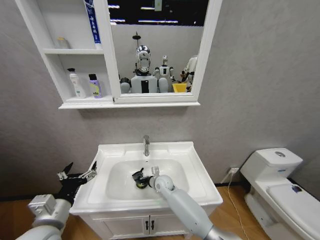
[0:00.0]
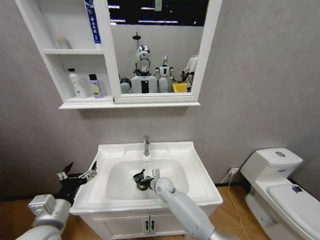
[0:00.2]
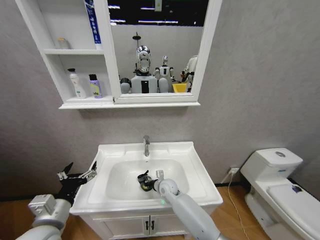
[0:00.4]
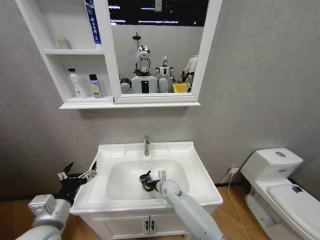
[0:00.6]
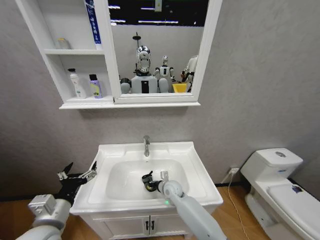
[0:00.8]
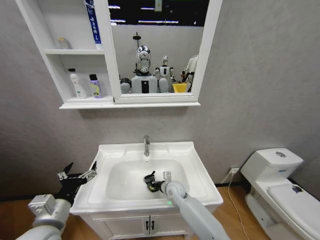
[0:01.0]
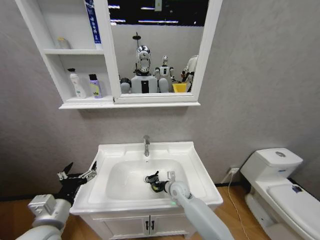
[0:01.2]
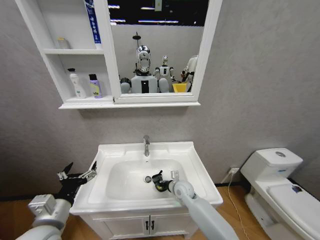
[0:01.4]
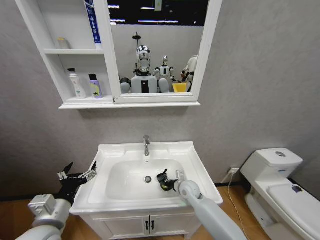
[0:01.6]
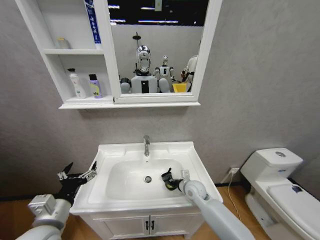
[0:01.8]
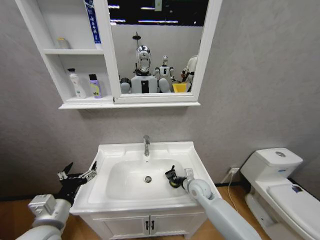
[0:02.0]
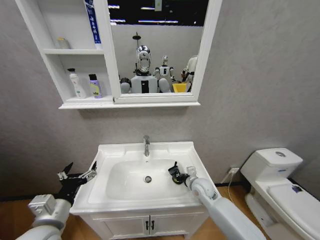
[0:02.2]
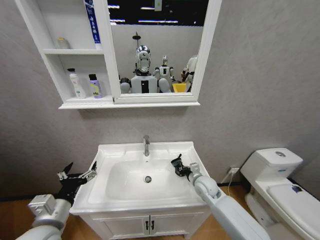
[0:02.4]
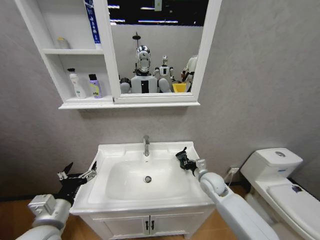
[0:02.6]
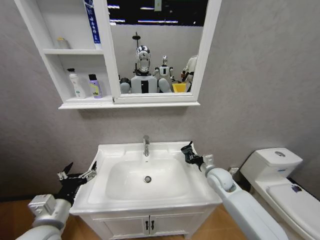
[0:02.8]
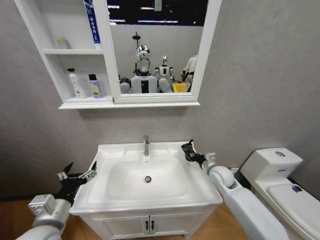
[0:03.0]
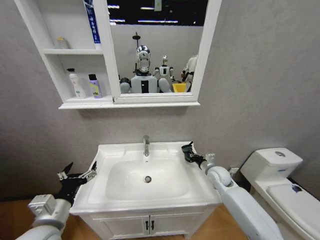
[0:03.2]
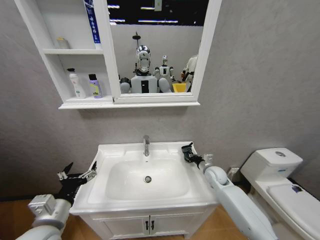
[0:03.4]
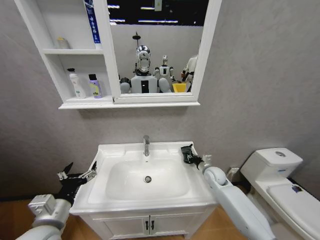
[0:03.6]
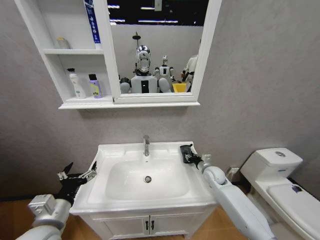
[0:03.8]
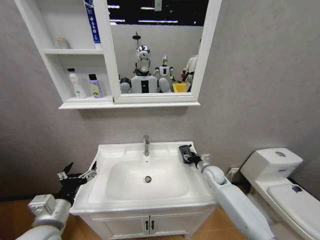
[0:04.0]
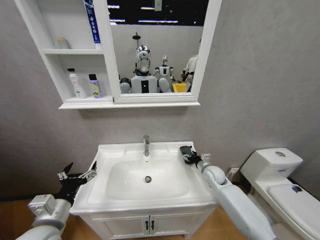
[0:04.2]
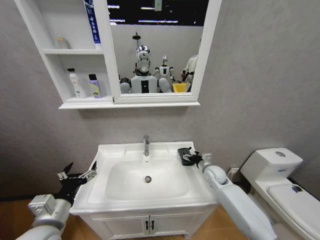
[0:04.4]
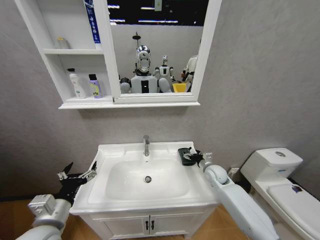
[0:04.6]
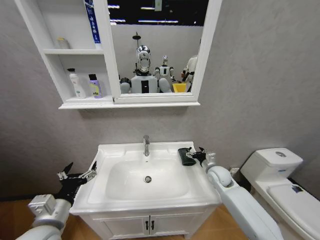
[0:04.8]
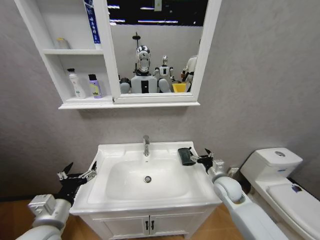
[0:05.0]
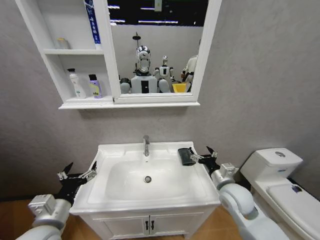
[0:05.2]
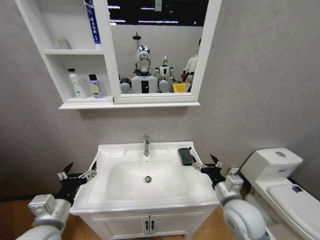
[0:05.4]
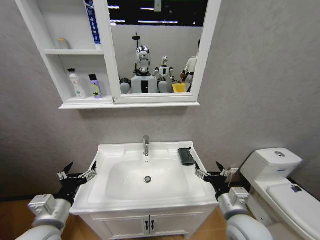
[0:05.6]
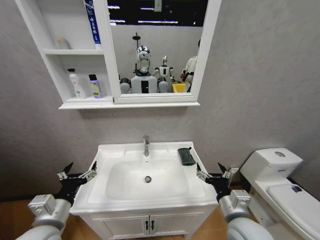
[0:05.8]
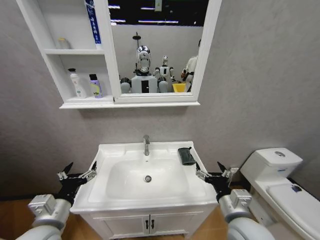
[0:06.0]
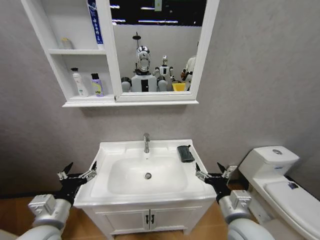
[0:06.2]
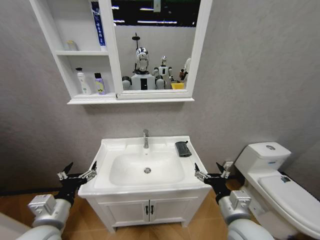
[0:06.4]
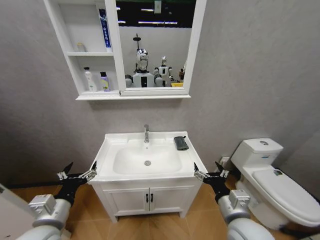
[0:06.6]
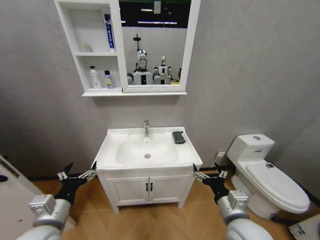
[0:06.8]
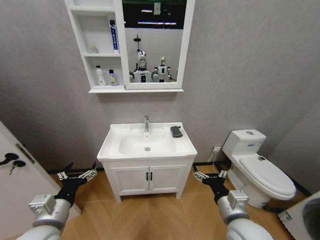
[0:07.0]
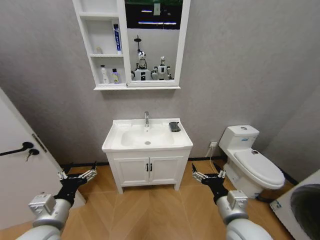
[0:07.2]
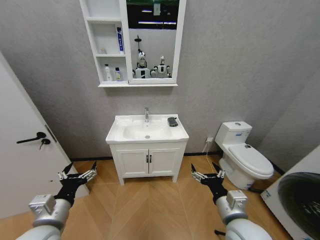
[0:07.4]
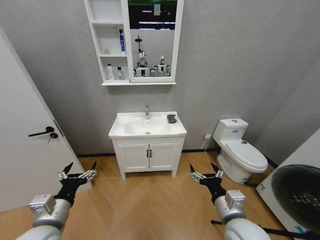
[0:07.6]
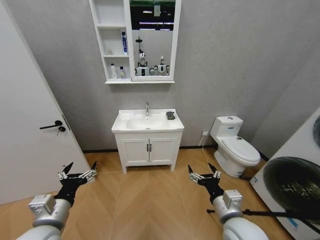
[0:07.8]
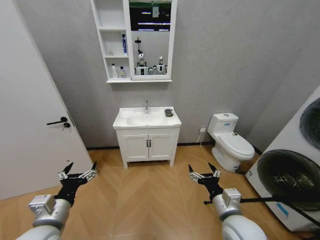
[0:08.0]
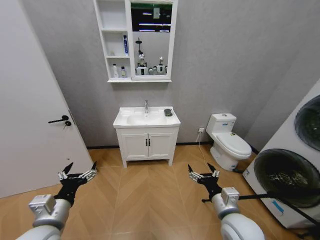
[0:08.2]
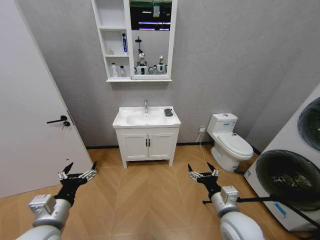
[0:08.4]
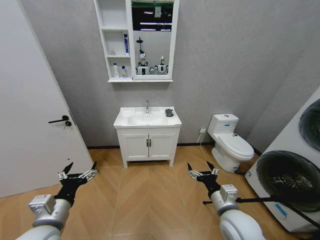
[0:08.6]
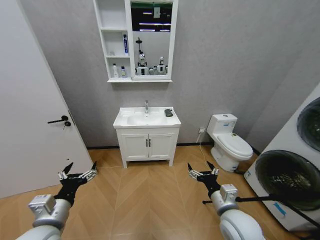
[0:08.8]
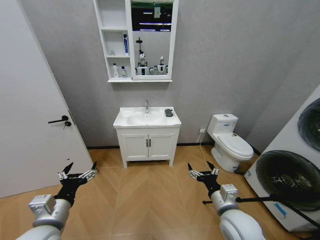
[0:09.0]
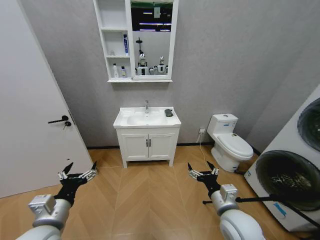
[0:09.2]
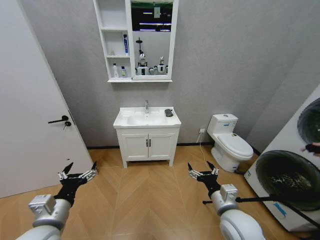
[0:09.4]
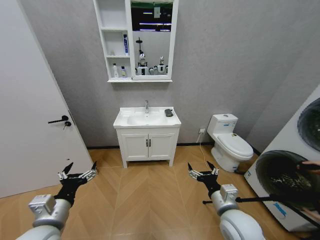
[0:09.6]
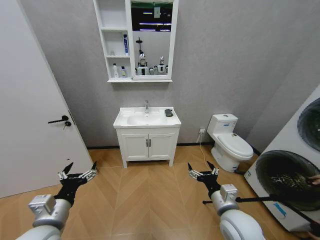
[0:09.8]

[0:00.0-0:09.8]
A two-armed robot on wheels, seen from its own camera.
Task of the whole recording: Move facial cleanser and shampoo from washbasin to cabinet, then wipe washbasin with towel.
0:00.0 to 0:01.4: The right gripper is displaced to the right by roughly 10 cm.
0:01.4 to 0:02.8: The right gripper heads to the right and upward, covering some 20 cm.
0:02.8 to 0:04.2: The right gripper shifts by about 5 cm, and opens.
0:04.2 to 0:05.6: The right gripper goes roughly 25 cm backward and upward.
0:08.4 to 0:09.8: The two grippers keep their place.
